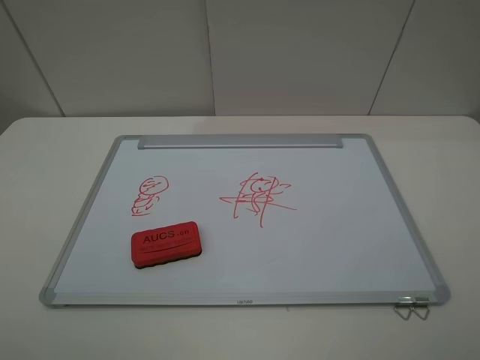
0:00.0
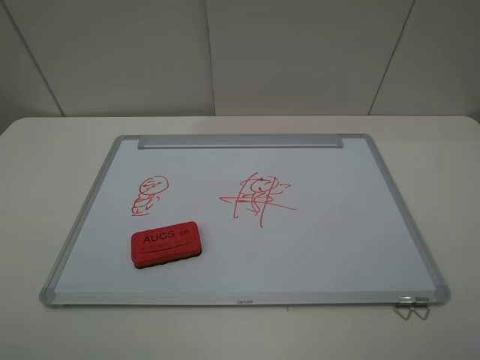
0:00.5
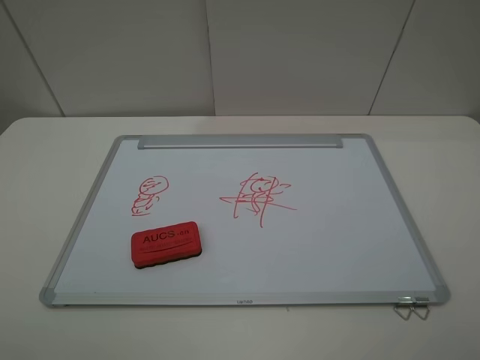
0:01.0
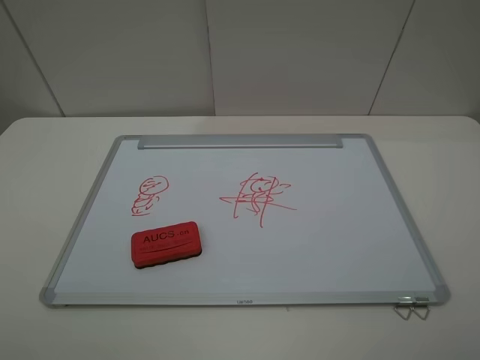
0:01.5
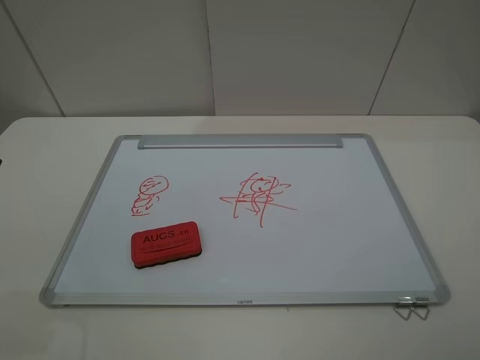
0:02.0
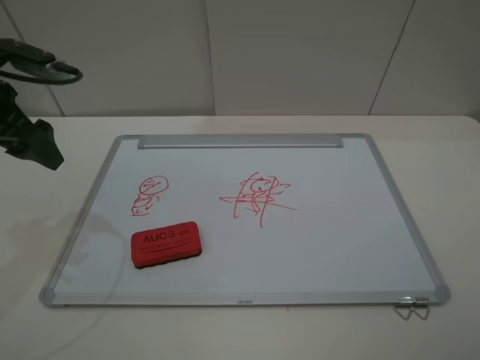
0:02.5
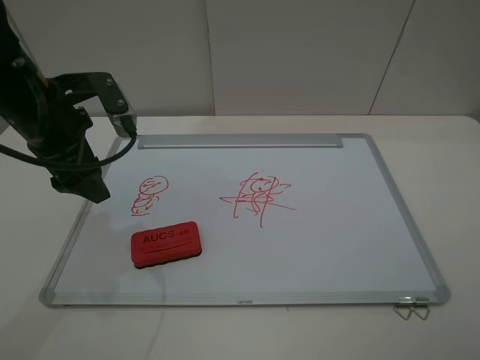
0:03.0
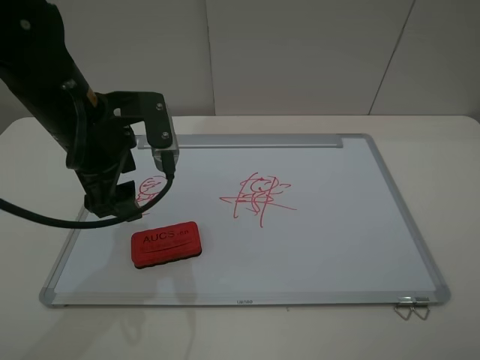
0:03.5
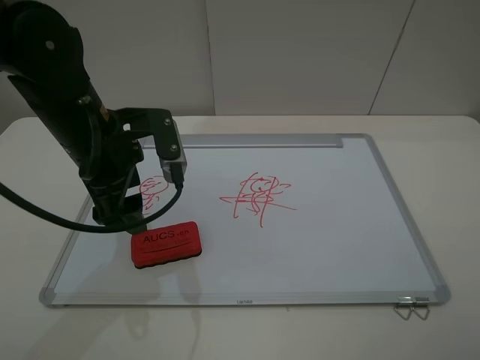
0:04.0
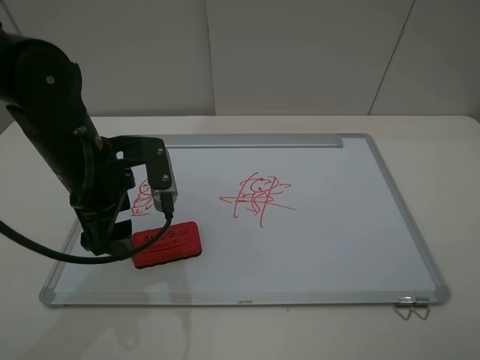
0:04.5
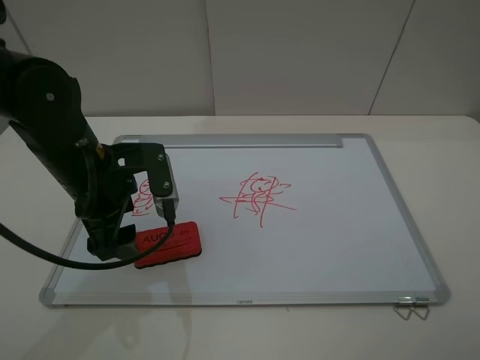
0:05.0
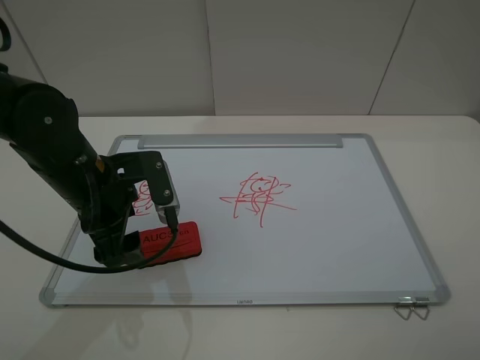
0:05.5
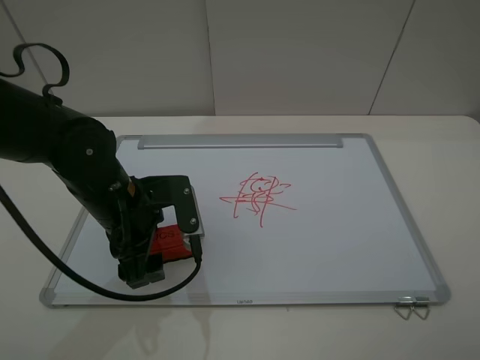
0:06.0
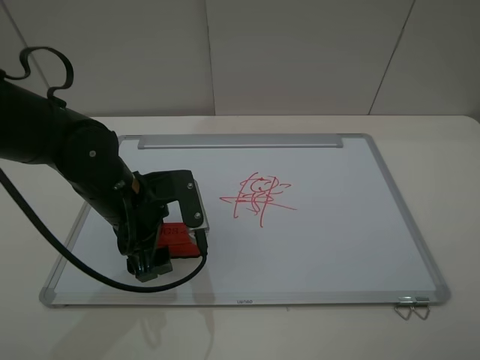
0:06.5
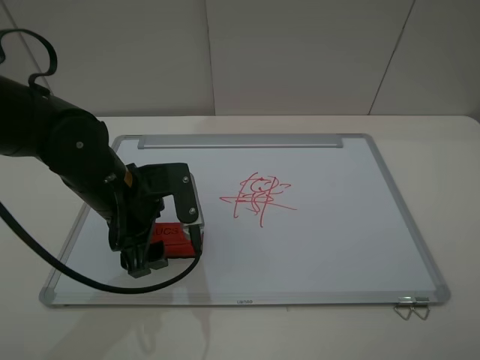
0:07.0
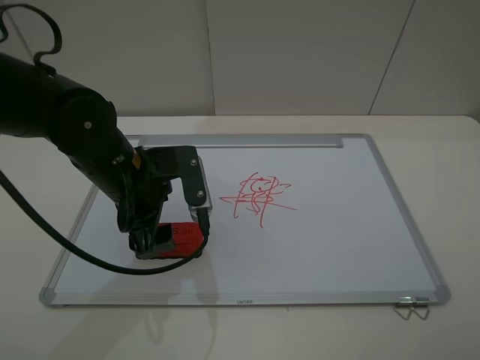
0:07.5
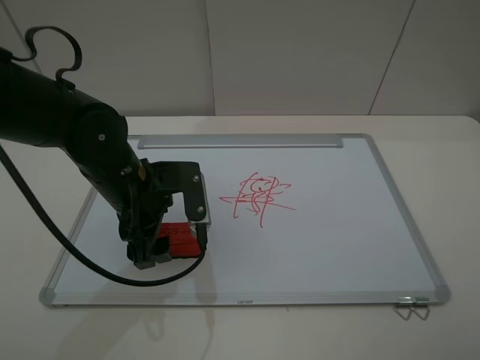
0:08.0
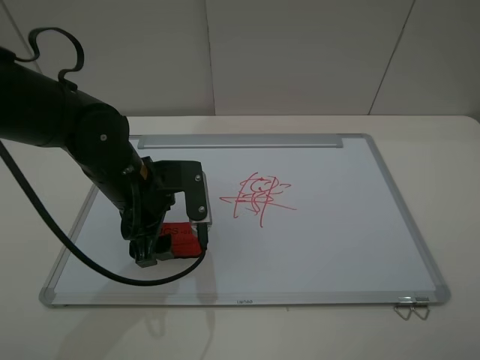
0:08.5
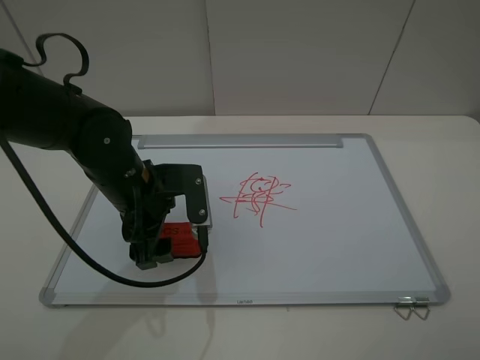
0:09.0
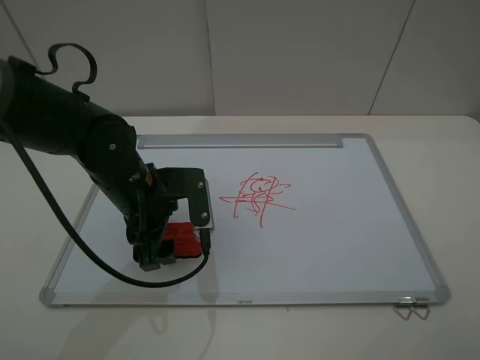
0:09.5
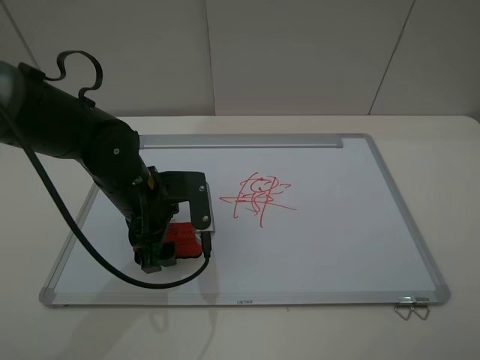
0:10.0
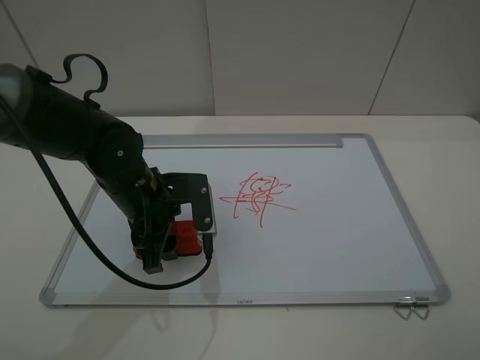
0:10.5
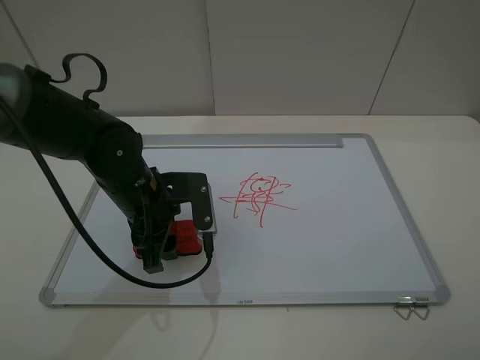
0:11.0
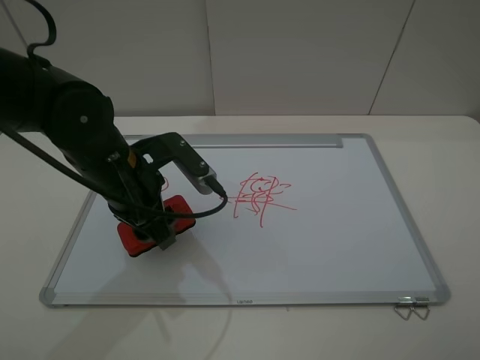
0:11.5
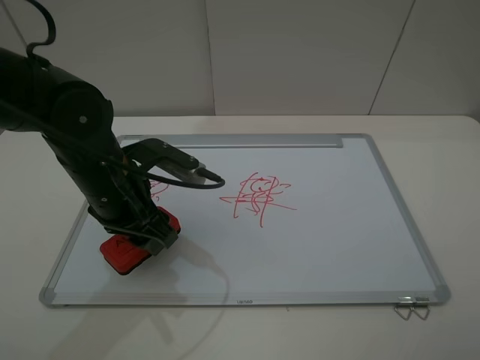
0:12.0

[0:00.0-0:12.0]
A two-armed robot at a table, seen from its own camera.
Step, 0:00.0 to 0:10.0: Grasp the eraser with the left gripper.
0:02.0 to 0:04.0: The left gripper shifts about 20 cm to the right, downward and forward.
0:04.0 to 0:06.0: The left gripper travels downward by roughly 10 cm.
0:06.0 to 0:10.0: The grippers stay close to where they were, moving slightly.
0:10.0 to 0:12.0: The left gripper closes its fingers.

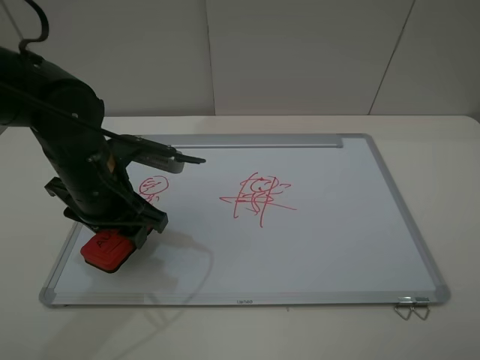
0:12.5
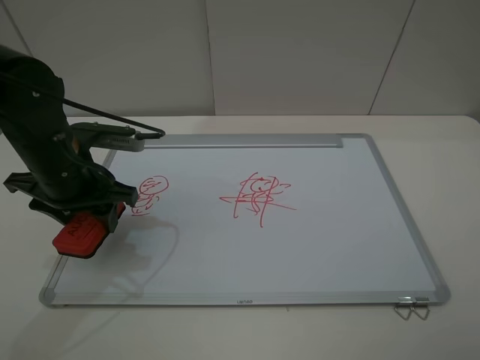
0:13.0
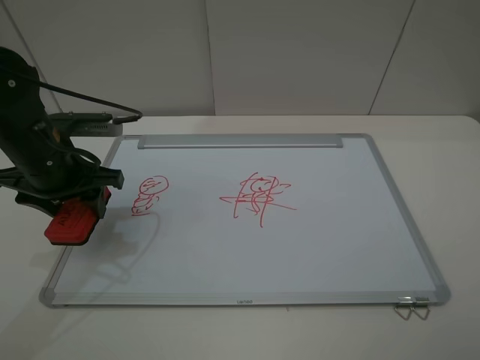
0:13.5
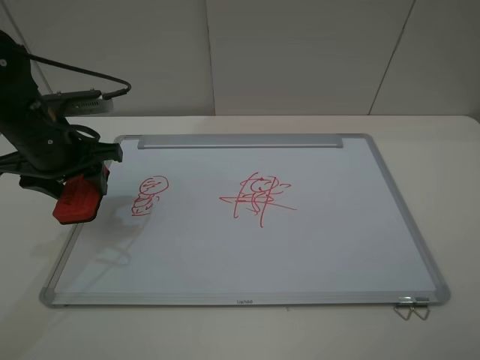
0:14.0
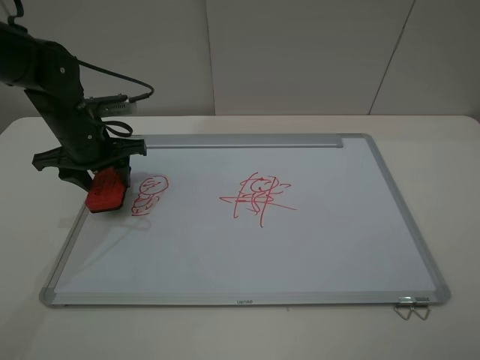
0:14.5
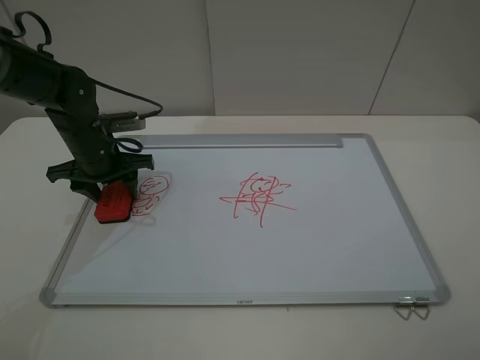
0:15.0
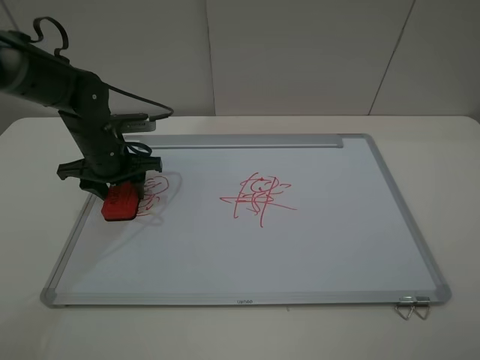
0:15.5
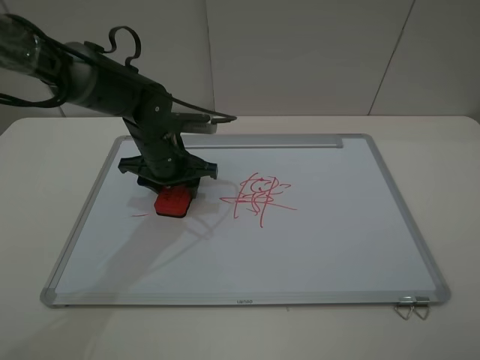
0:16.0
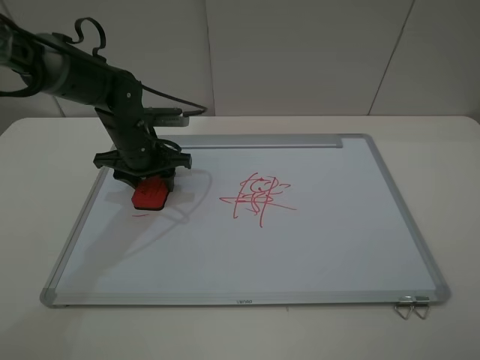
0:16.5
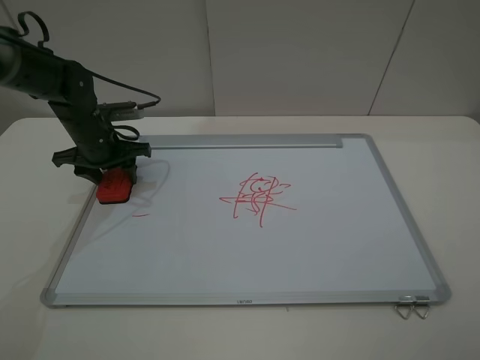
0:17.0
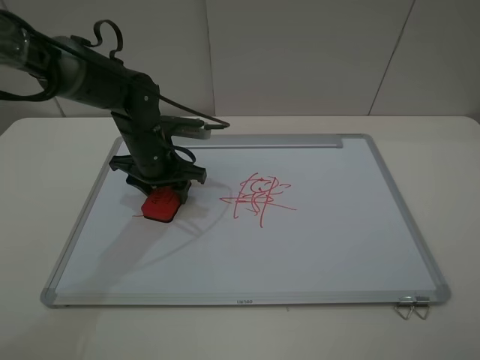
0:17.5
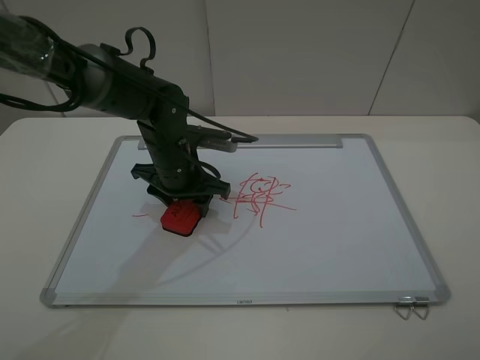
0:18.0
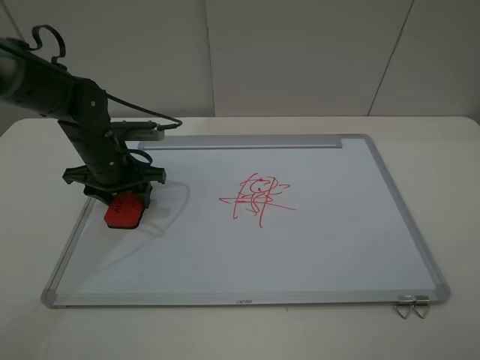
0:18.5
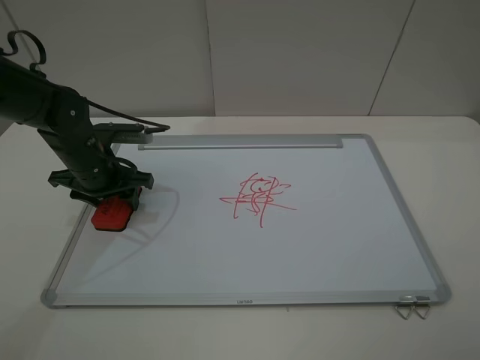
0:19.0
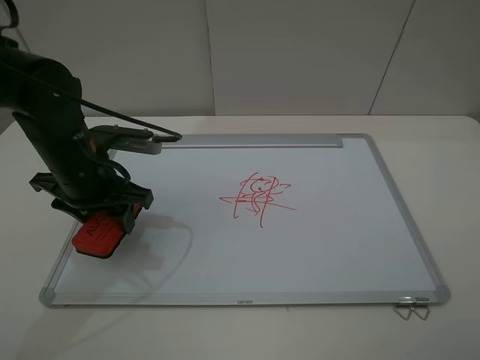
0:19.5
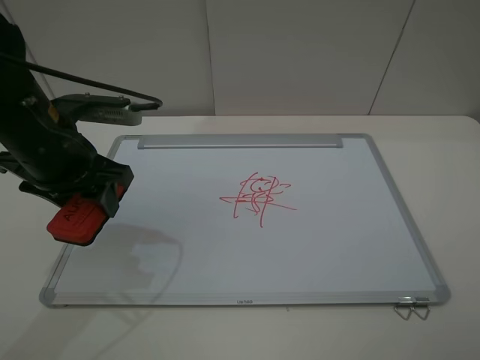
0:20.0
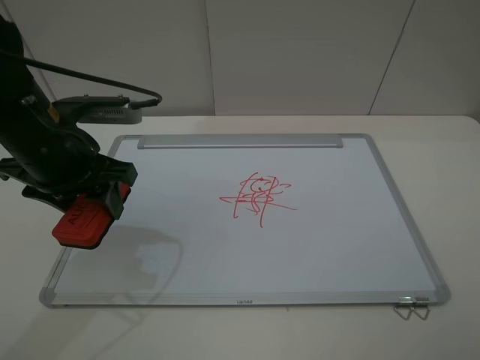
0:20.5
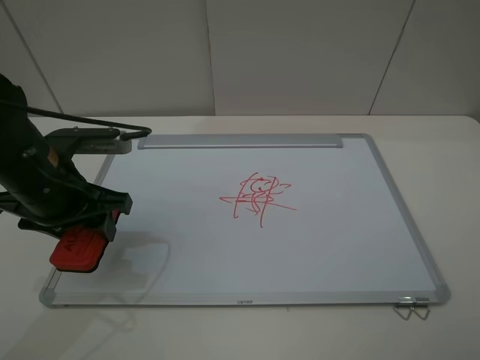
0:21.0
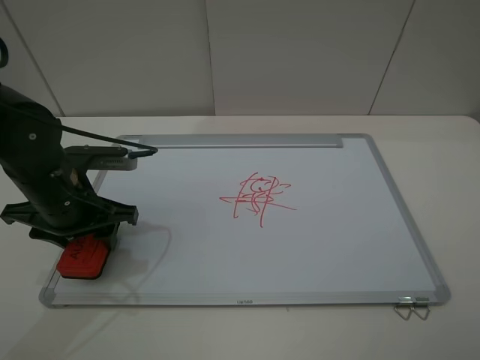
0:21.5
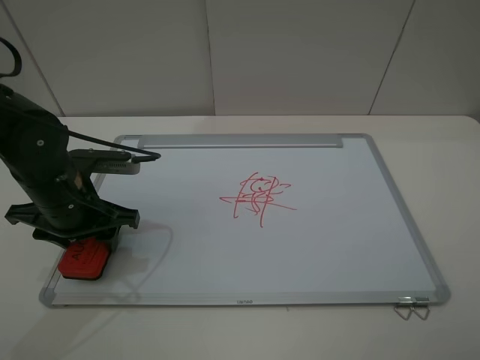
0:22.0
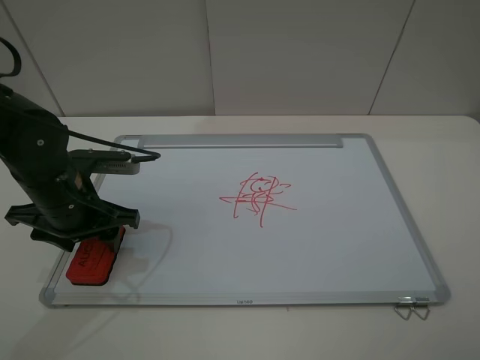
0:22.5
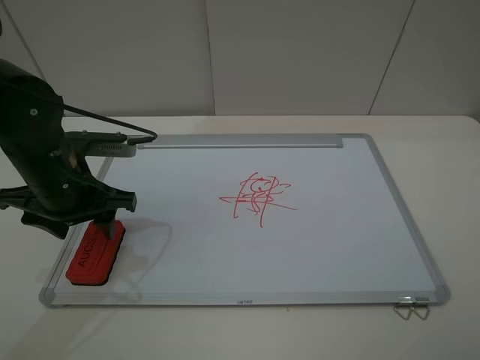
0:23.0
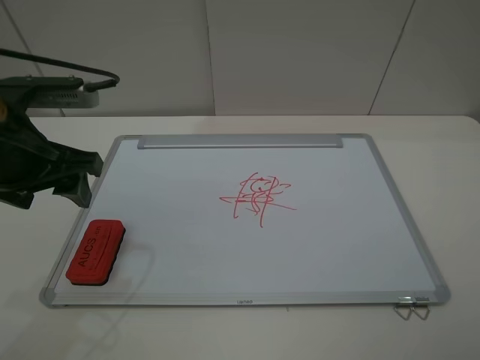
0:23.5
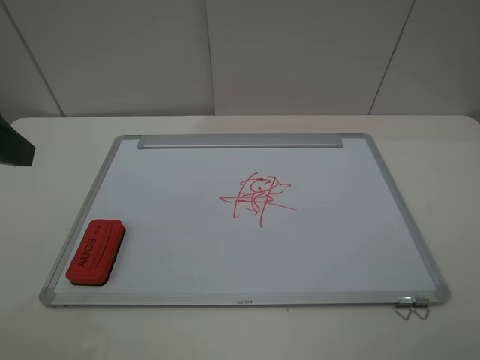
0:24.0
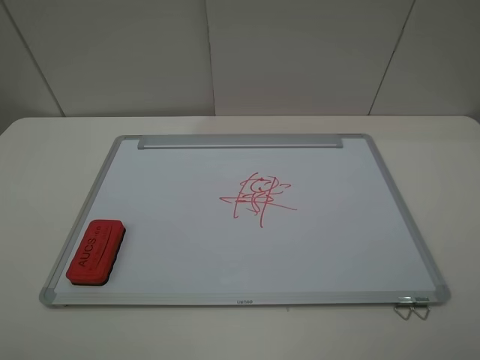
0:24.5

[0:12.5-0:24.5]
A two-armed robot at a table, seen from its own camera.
Step, 0:12.5 to 0:19.0: Grasp the eraser and wipe the blackboard with the left gripper.
Step, 0:19.5 to 0:22.5: Place the eraser with the left gripper.
0:12.5 to 0:14.5: The left gripper goes some 10 cm forward and to the left.
0:14.5 to 0:16.5: The left gripper heads downward and to the right, covering approximately 5 cm.
0:16.5 to 0:18.5: The left gripper goes left and right, roughly 15 cm each way, reversing 2 times.
0:18.5 to 0:20.5: The left gripper travels upward and backward by approximately 15 cm.
0:20.5 to 0:22.5: The left gripper goes approximately 10 cm downward.
0:22.5 to 0:24.5: The left gripper is displaced upward, backward and to the left by approximately 30 cm, and opens.

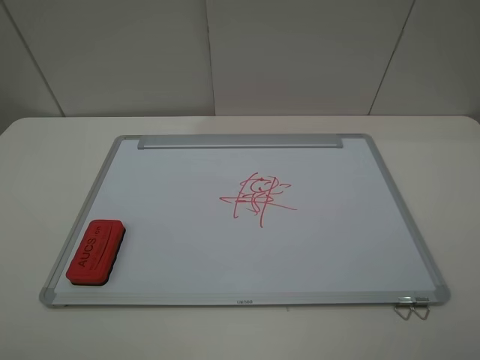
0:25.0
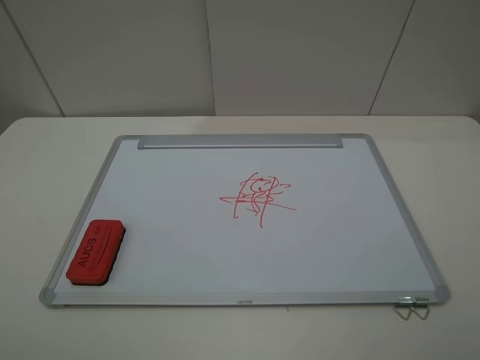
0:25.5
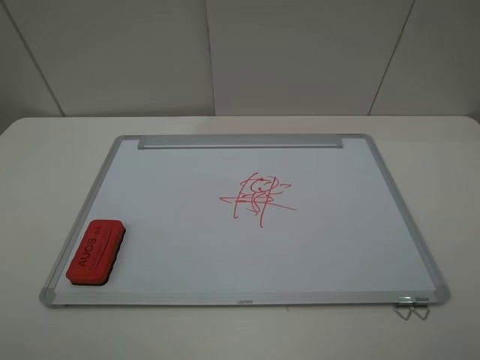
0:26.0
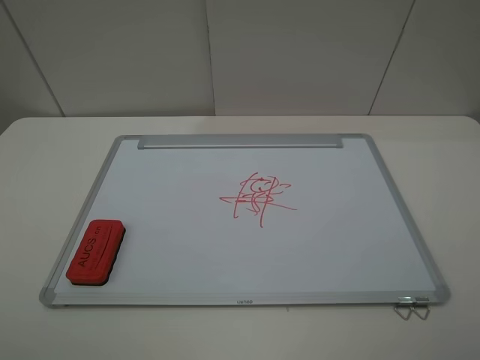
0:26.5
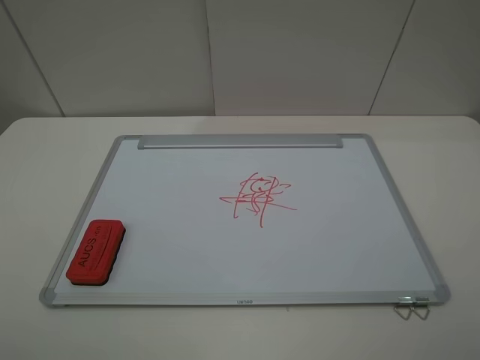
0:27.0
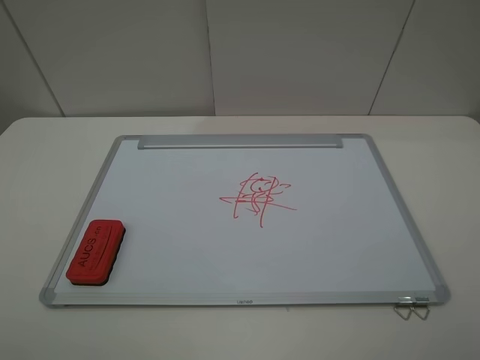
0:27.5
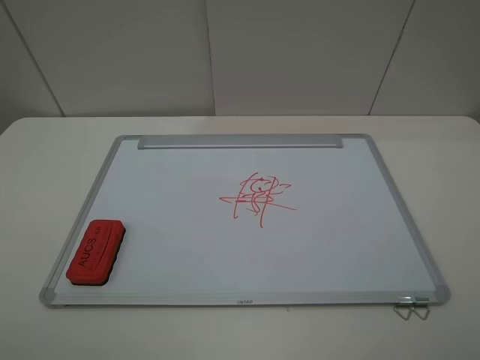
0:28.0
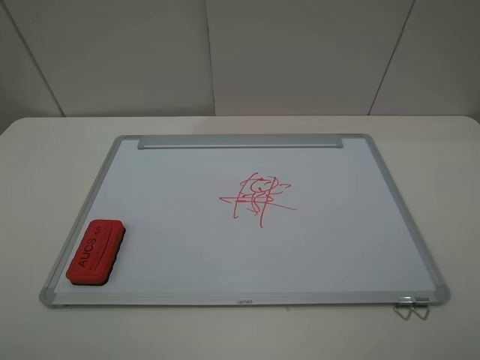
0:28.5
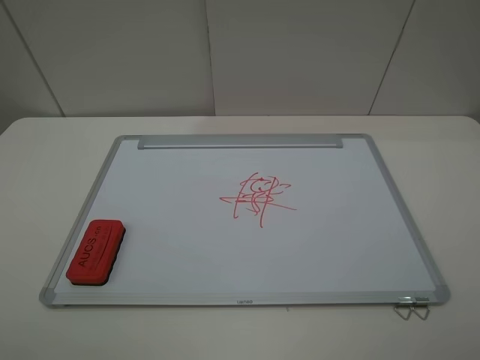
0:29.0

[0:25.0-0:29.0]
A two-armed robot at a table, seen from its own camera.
0:27.0 to 0:29.0: Both grippers stay put.
